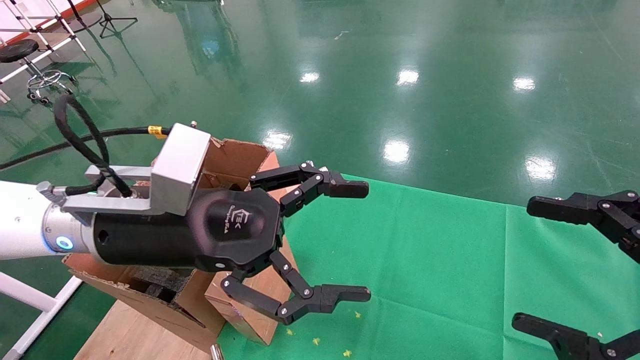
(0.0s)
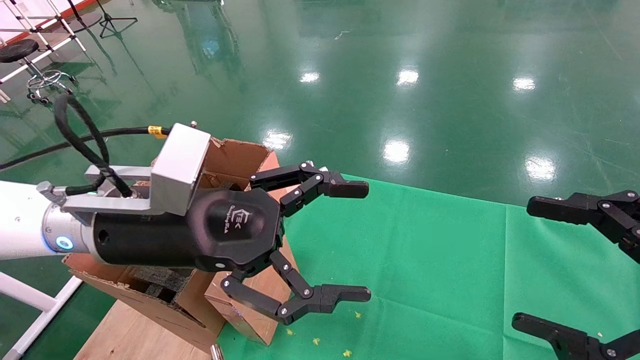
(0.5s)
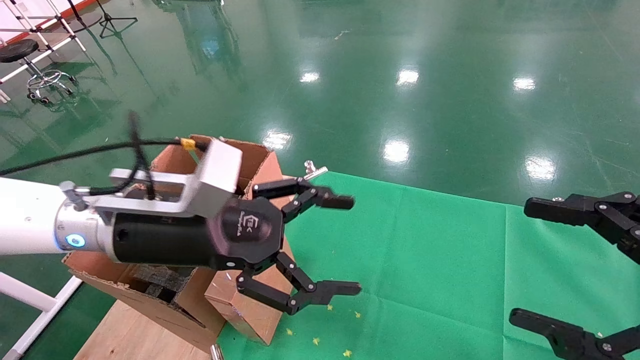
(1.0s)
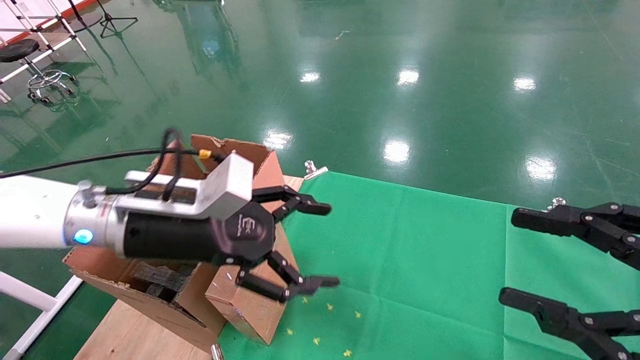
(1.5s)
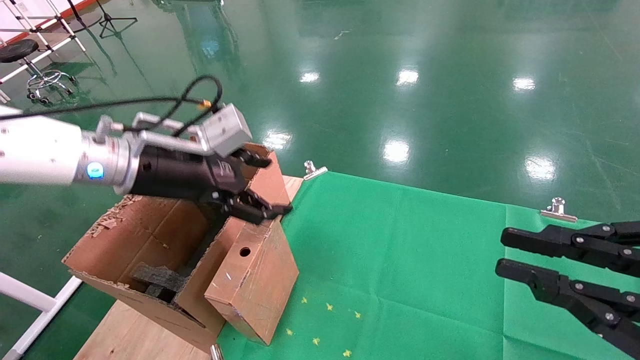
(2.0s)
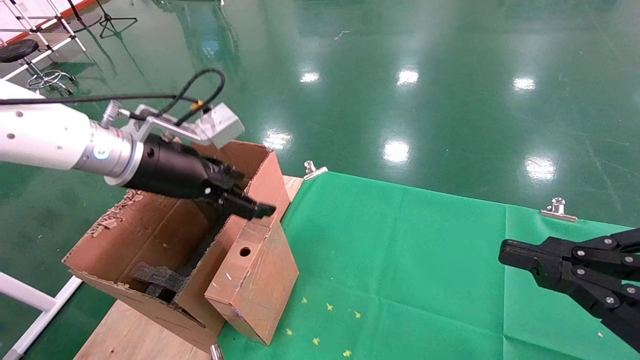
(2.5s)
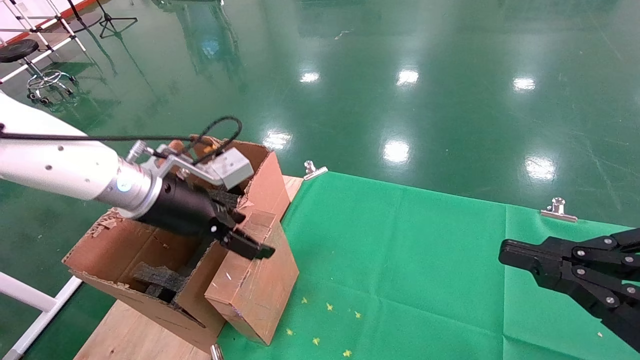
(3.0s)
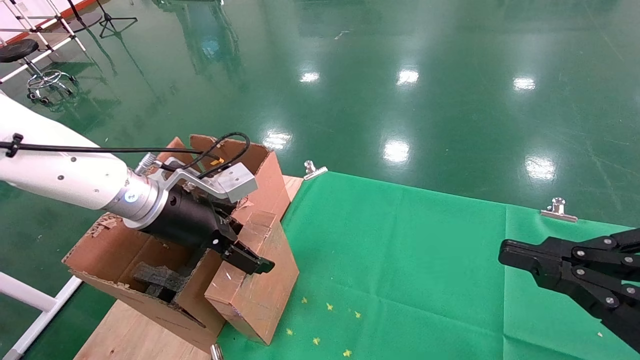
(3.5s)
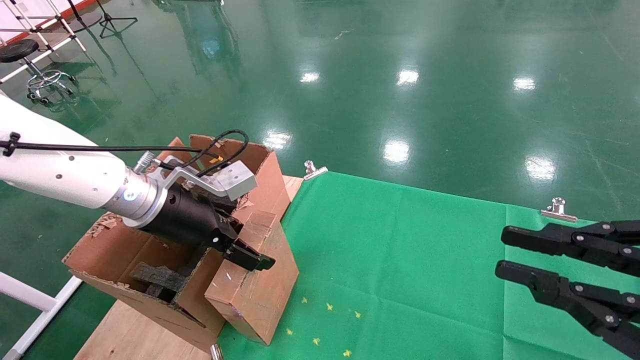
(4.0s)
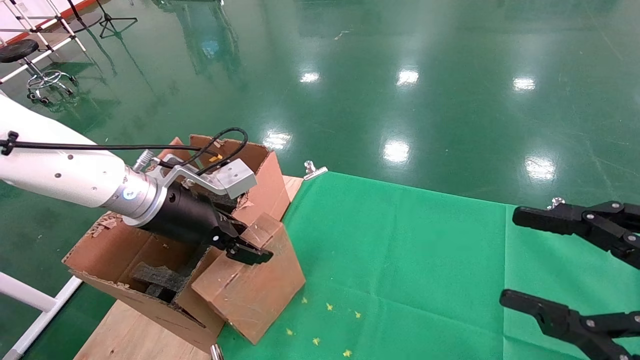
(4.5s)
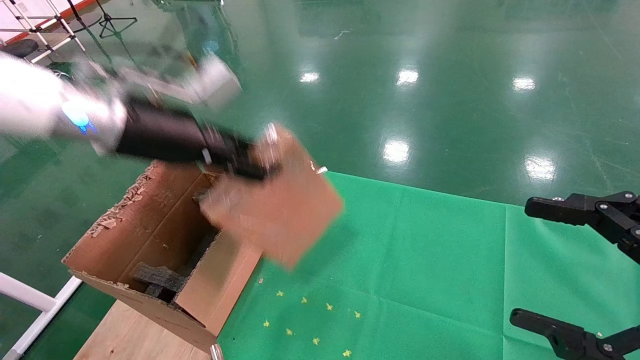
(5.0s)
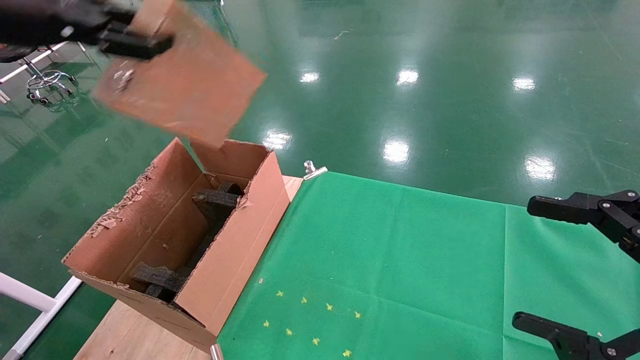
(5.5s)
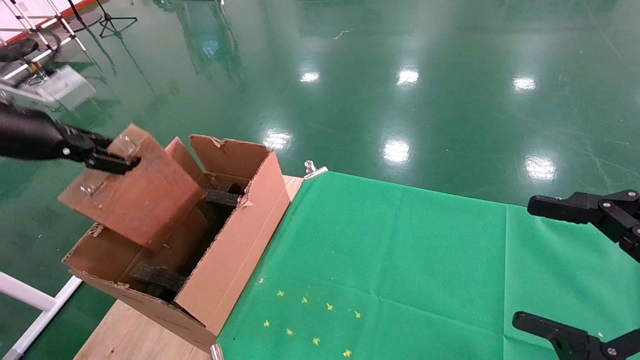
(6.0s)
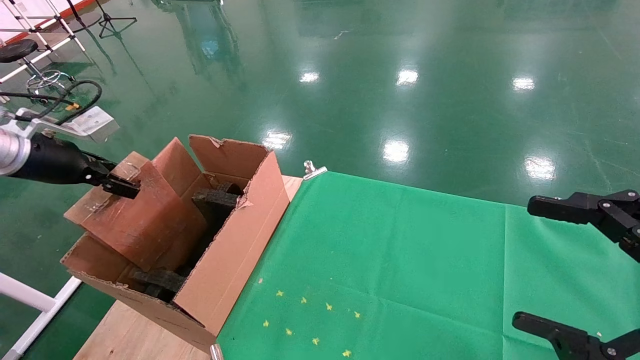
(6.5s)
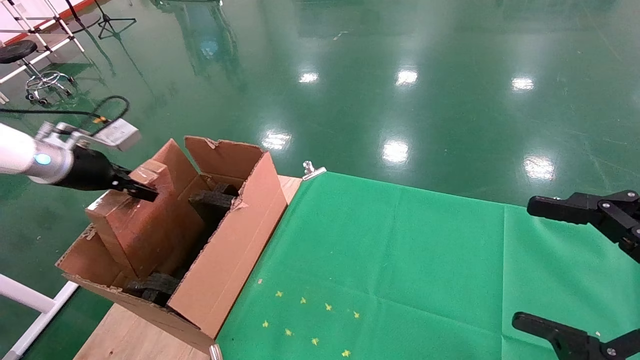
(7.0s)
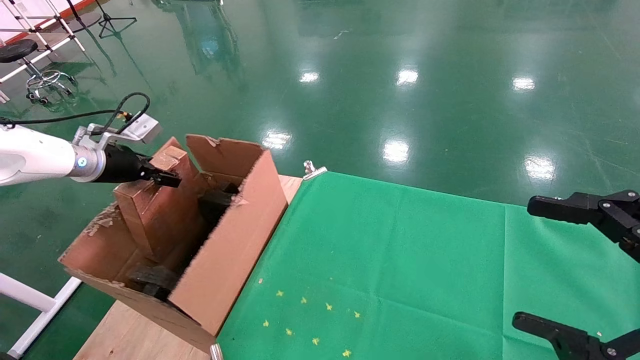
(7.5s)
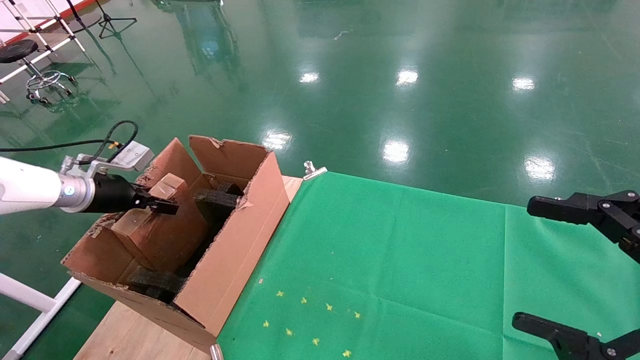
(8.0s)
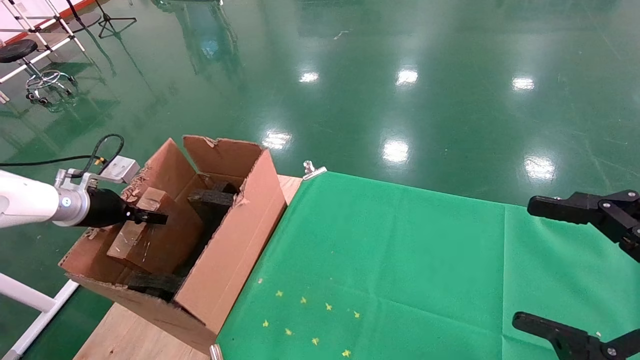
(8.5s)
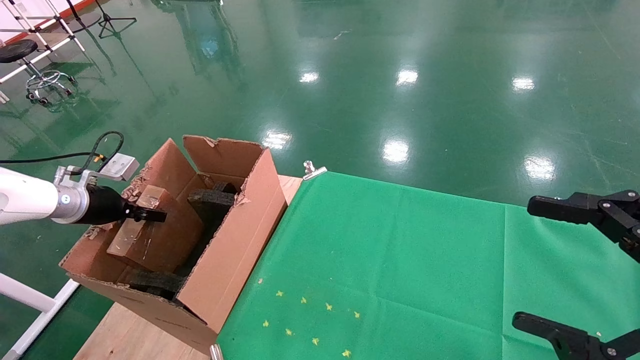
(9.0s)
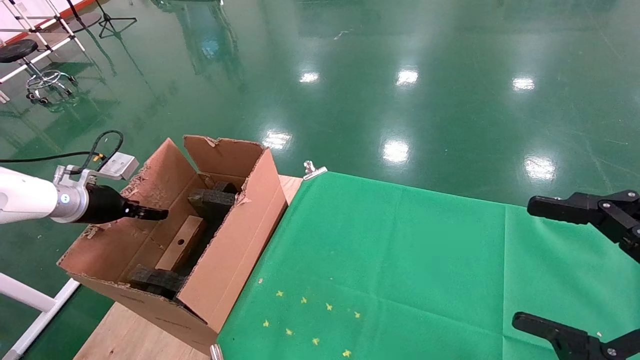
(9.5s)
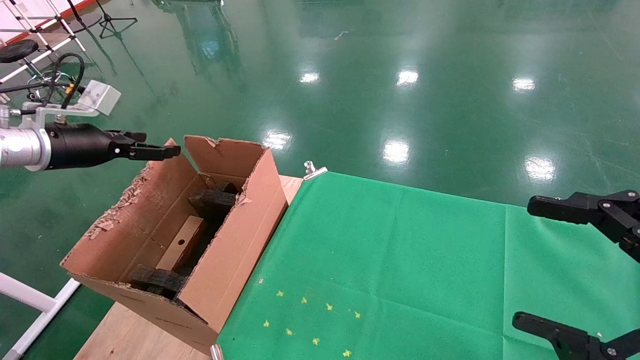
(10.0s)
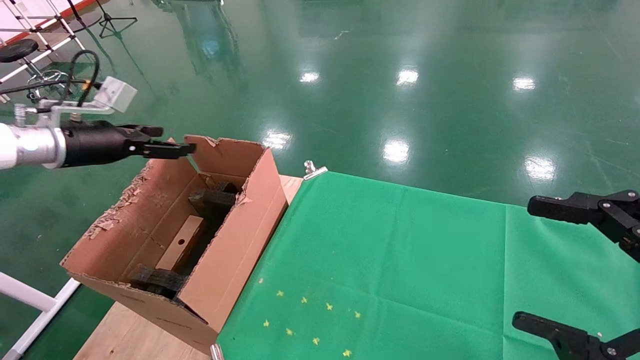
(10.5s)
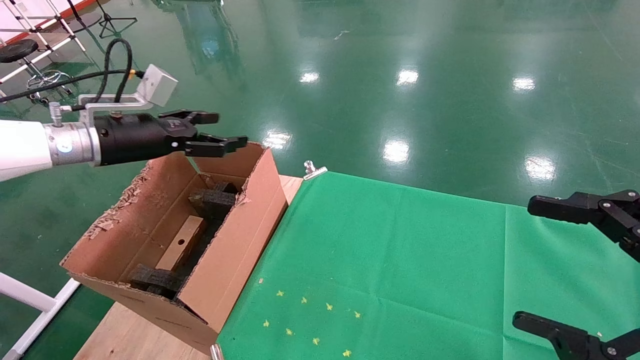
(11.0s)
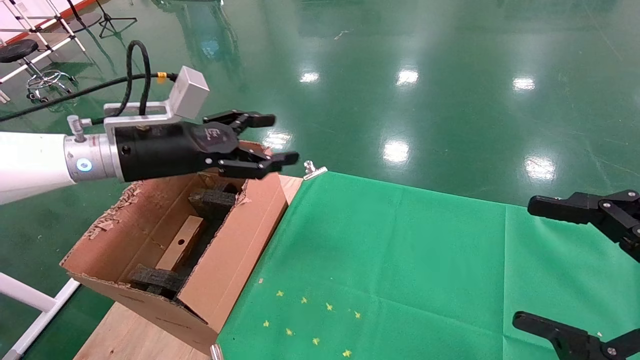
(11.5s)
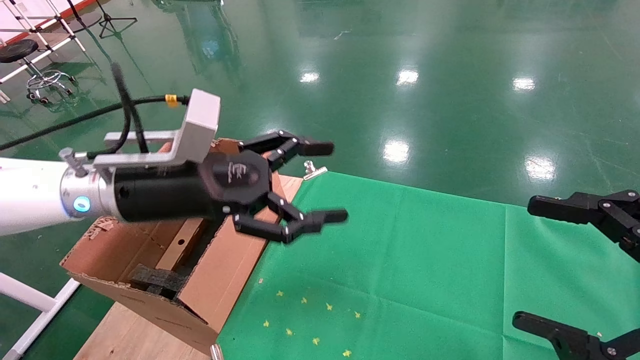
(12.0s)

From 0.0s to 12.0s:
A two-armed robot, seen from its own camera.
Task of the whole recording: using a robotic arm to pick up a cardboard box and palace it the carton.
Step, from 1.5s to 4.5s: Pick up the mouse and the power cord paper box.
Step, from 5.0s to 9.0s: Place the mouse and the power cord paper box into the container.
From 0.0s to 2.0s: The left gripper is displaced forward and to the left by approximately 10 cm; the right gripper closes its fingers.
From 2.0s to 4.0s: The left gripper travels downward by approximately 5 cm.
From 4.0s to 6.0s: The right gripper opens. The left gripper heads to the left and upward, covering approximately 25 cm, and closes.
From 6.0s to 8.0s: The left gripper heads downward and forward, covering some 20 cm.
From 8.0s to 10.0s: The left gripper moves upward, approximately 10 cm, and opens.
From 10.0s to 12.0s: The left gripper is displaced to the right by about 25 cm.

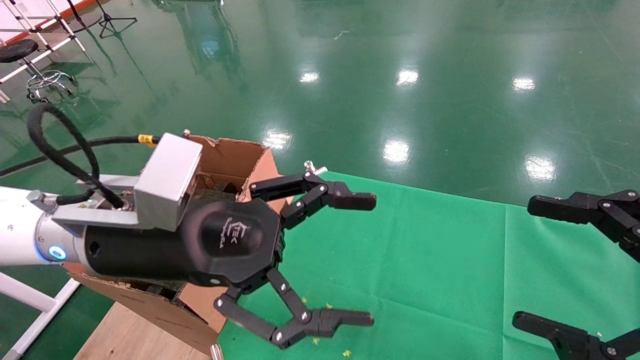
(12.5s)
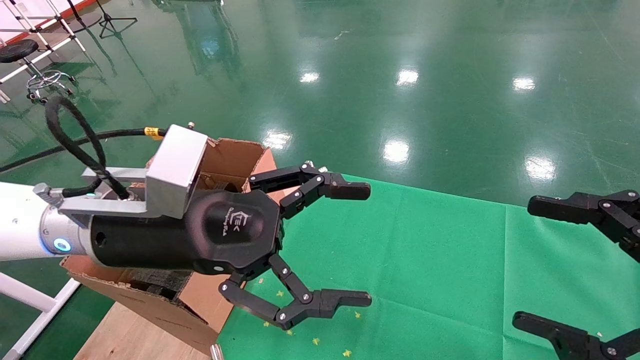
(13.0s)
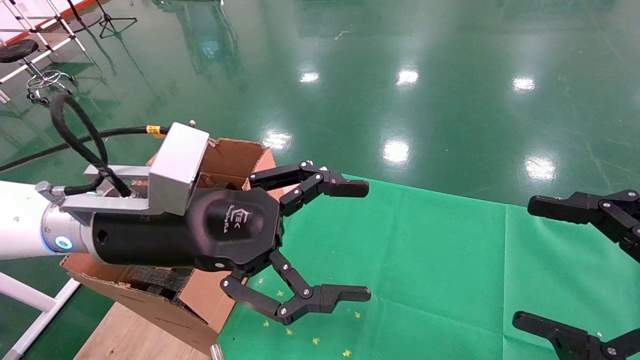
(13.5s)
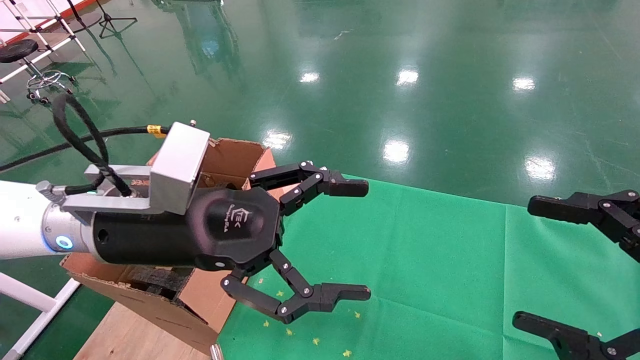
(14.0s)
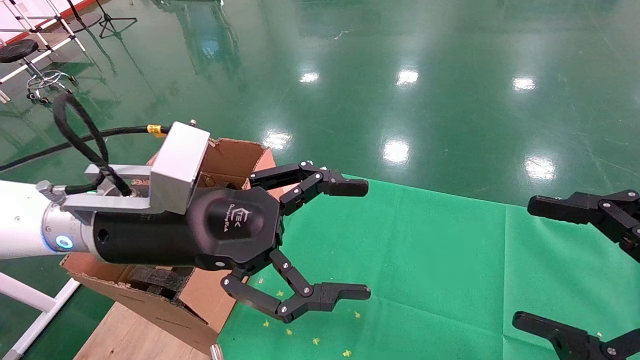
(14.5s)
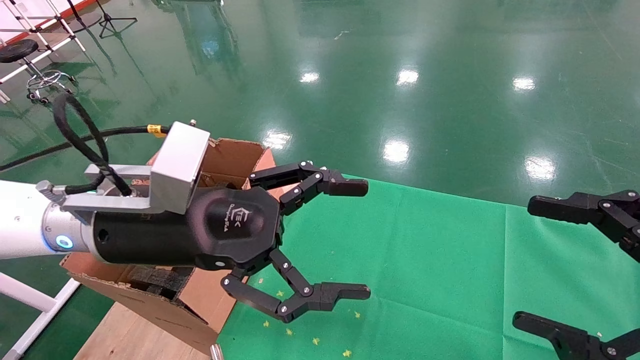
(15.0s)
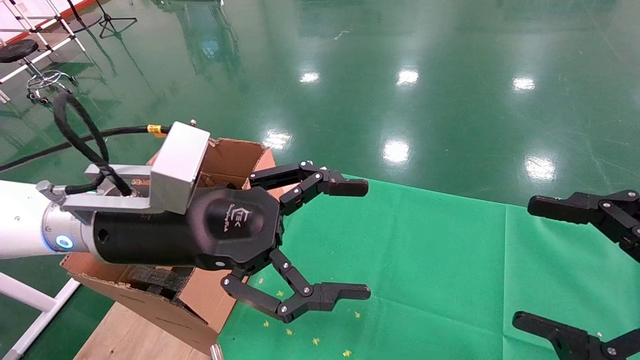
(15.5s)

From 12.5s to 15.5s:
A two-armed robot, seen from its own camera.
Task of the whole recording: using a robotic arm to pick up a cardboard box and palace it the carton.
From 12.5s to 15.5s: Both grippers stay put.

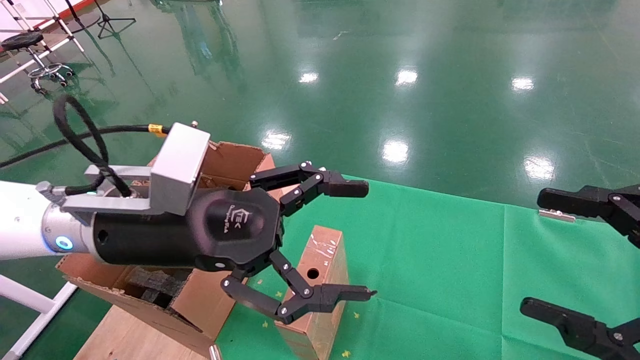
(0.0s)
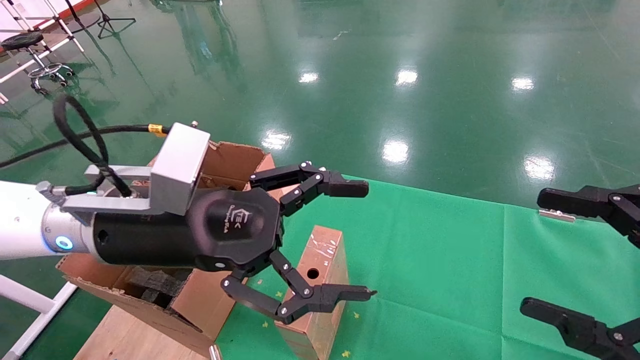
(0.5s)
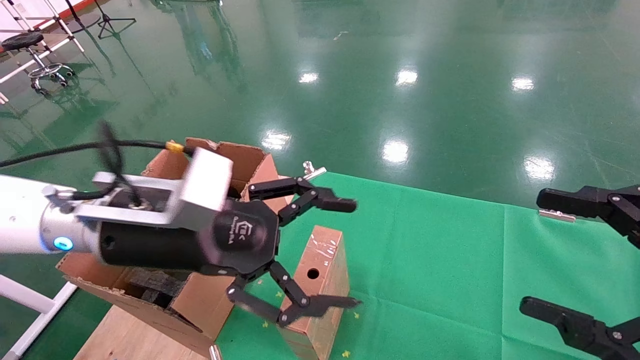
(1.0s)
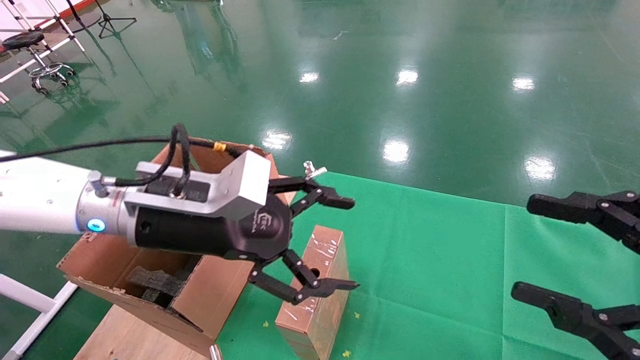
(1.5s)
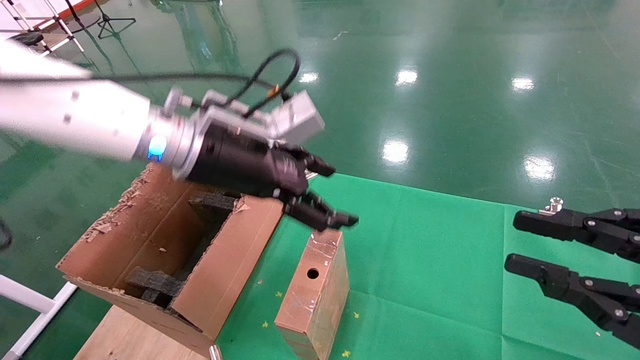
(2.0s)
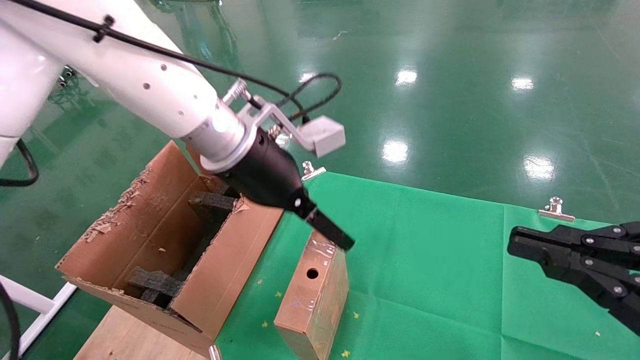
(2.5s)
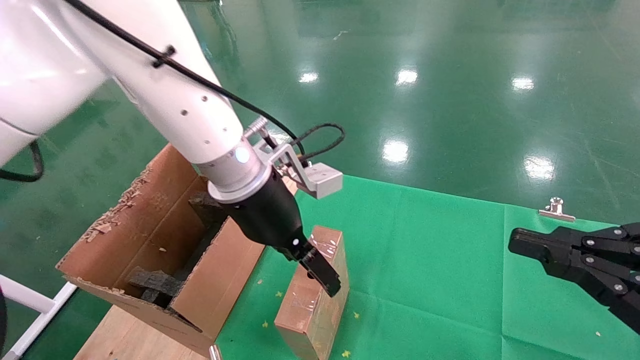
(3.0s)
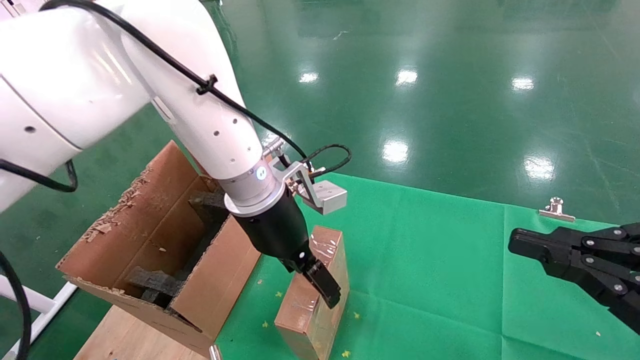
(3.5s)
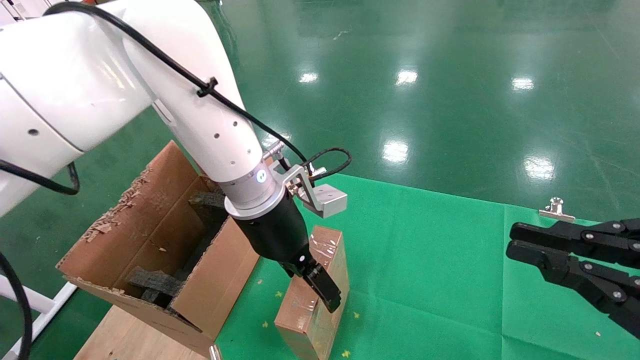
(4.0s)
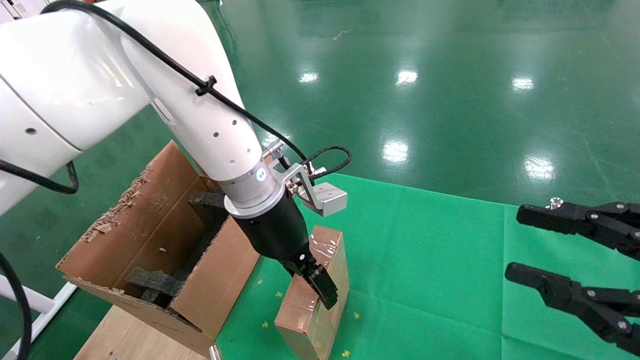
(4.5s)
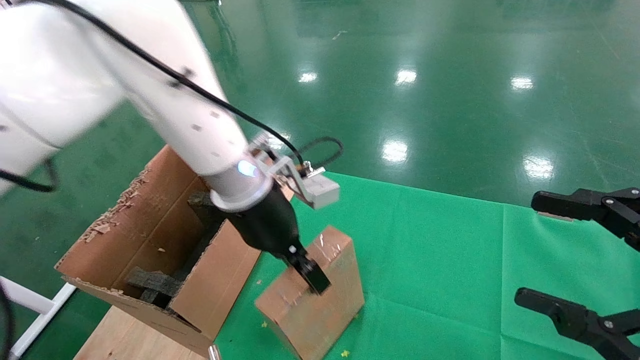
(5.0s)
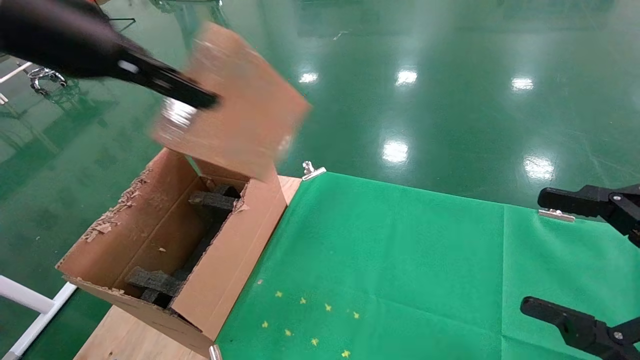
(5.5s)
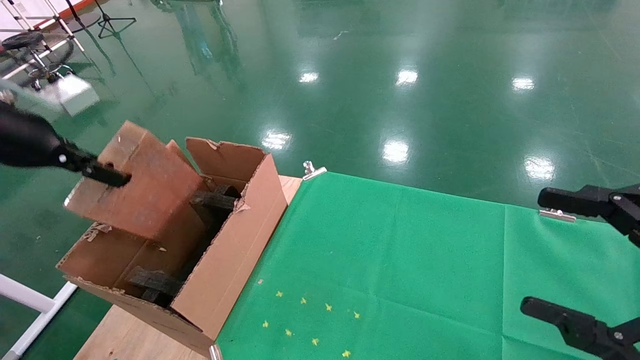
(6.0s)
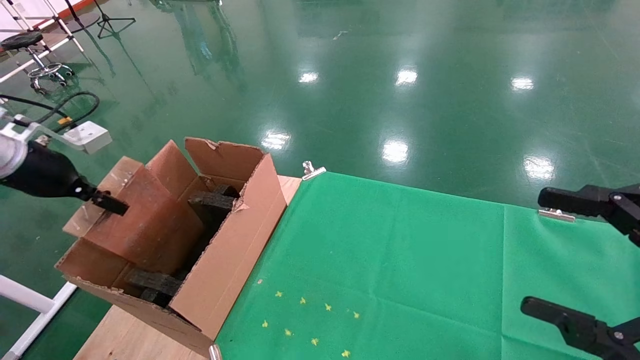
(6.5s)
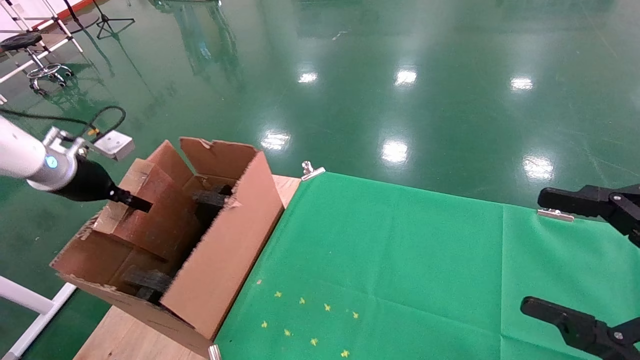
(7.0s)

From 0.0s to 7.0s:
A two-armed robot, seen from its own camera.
Task of the whole recording: using a robotic arm to pick up a cardboard box and palace it the carton.
Step, from 1.5s to 4.5s: Pick up the mouse and the power cord paper box.
From 0.0s to 2.0s: The left gripper shifts about 10 cm forward. Meanwhile the right gripper closes its fingers.
From 2.0s to 3.5s: The right gripper closes its fingers, while the left gripper heads to the right, covering about 5 cm.
From 3.5s to 5.0s: The right gripper opens, while the left gripper changes place by roughly 5 cm, and closes up.
From 5.0s to 7.0s: The left gripper shifts roughly 35 cm to the left.
